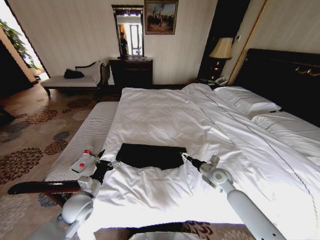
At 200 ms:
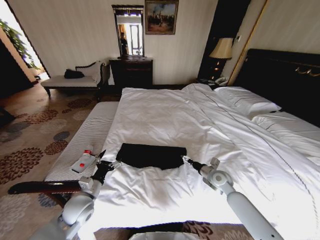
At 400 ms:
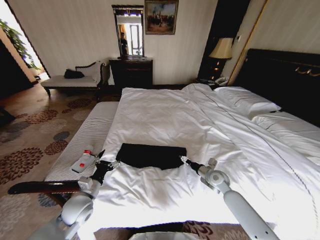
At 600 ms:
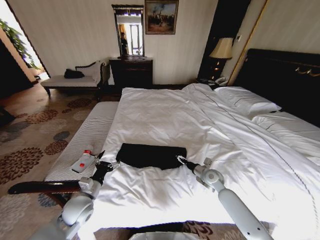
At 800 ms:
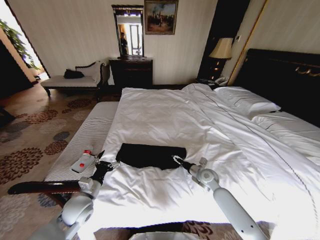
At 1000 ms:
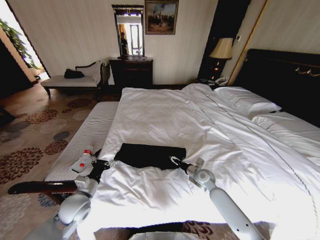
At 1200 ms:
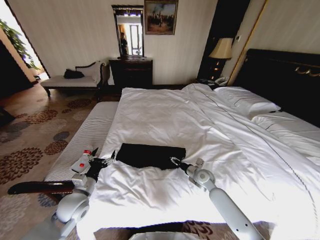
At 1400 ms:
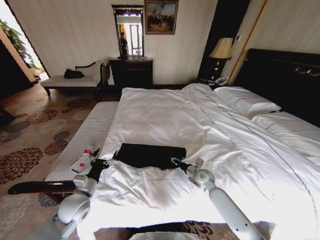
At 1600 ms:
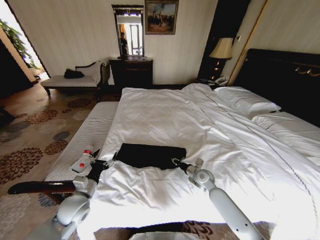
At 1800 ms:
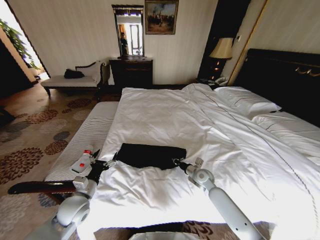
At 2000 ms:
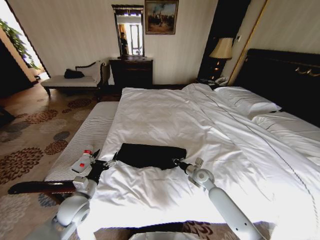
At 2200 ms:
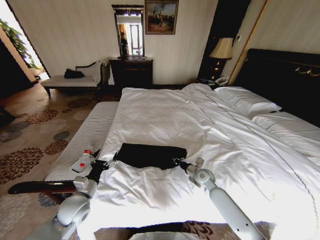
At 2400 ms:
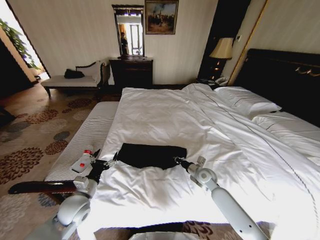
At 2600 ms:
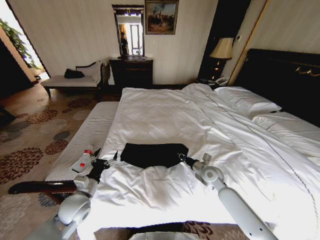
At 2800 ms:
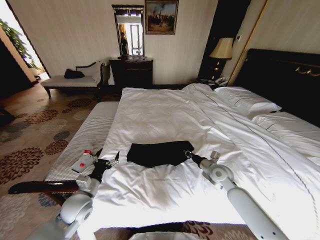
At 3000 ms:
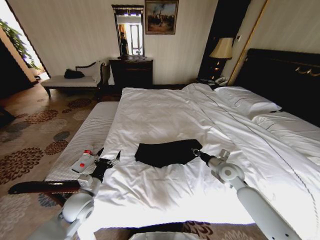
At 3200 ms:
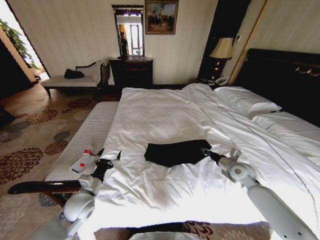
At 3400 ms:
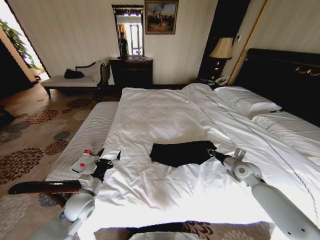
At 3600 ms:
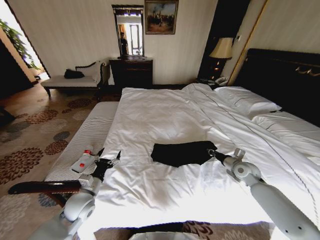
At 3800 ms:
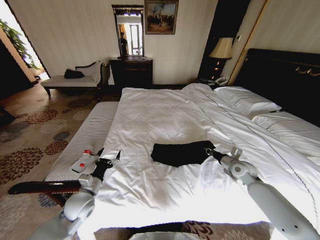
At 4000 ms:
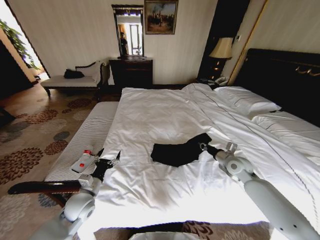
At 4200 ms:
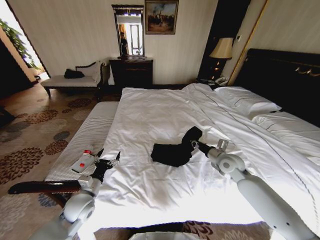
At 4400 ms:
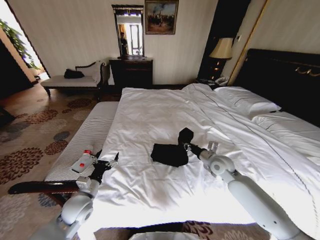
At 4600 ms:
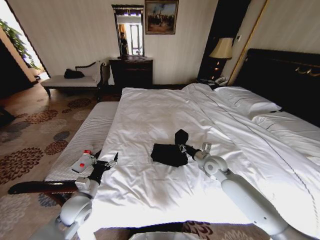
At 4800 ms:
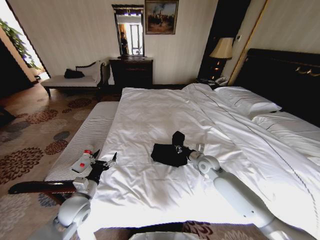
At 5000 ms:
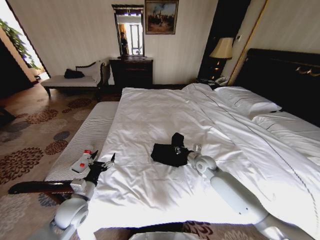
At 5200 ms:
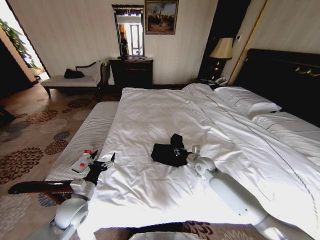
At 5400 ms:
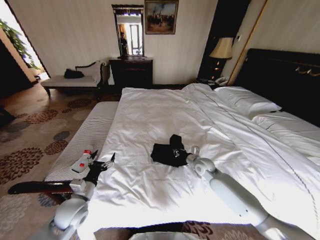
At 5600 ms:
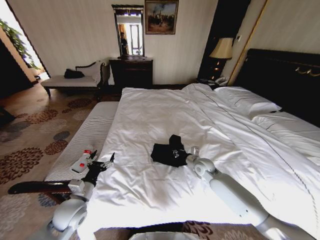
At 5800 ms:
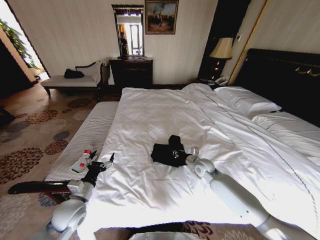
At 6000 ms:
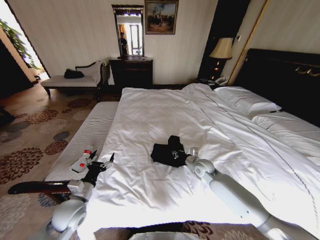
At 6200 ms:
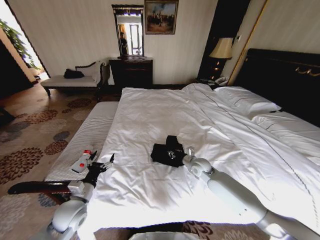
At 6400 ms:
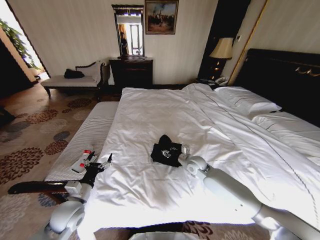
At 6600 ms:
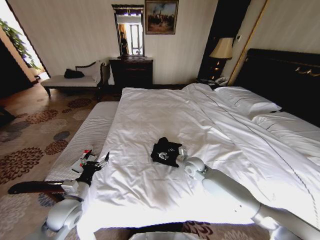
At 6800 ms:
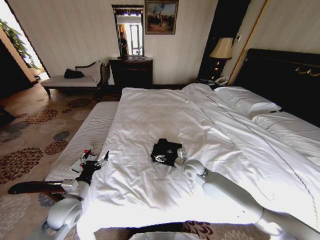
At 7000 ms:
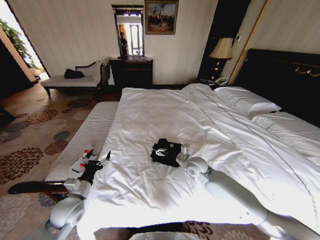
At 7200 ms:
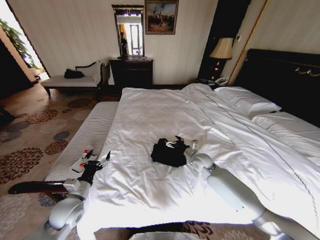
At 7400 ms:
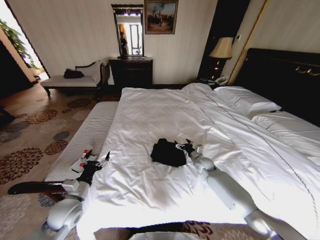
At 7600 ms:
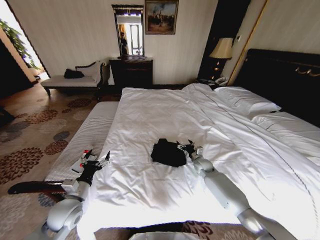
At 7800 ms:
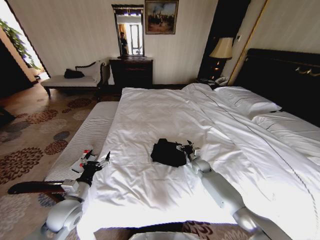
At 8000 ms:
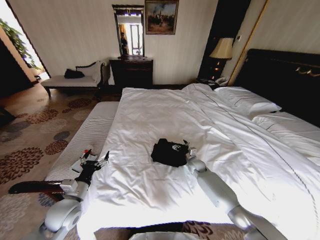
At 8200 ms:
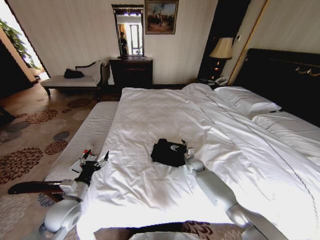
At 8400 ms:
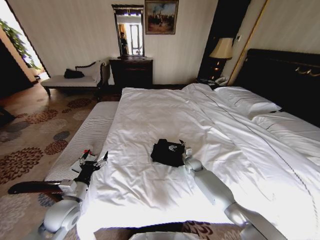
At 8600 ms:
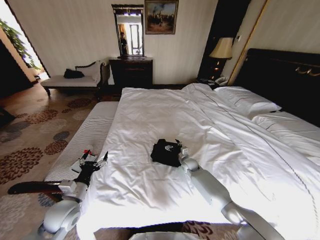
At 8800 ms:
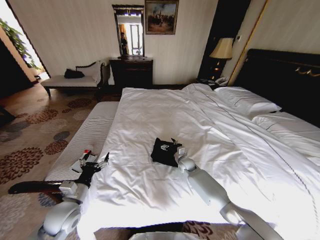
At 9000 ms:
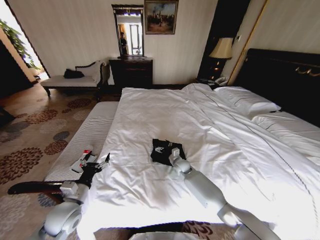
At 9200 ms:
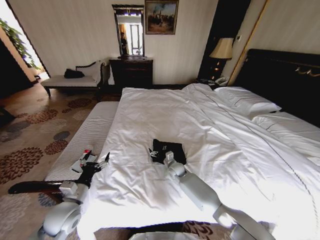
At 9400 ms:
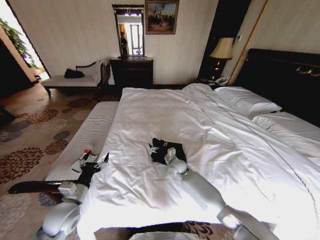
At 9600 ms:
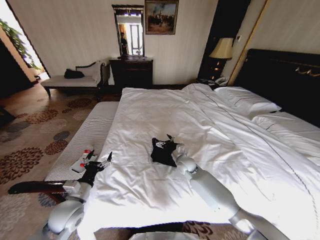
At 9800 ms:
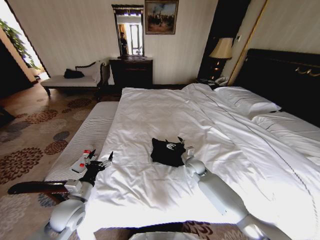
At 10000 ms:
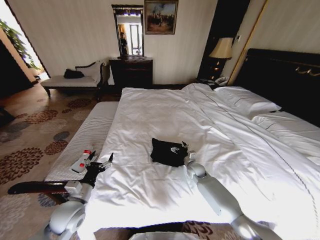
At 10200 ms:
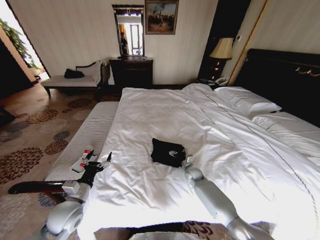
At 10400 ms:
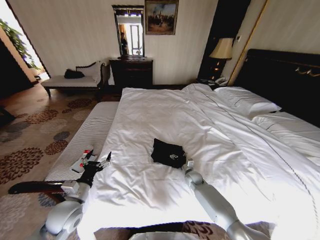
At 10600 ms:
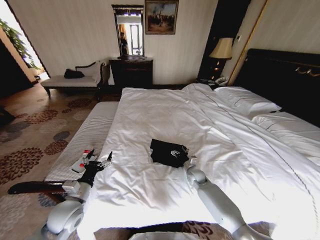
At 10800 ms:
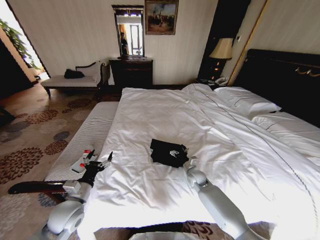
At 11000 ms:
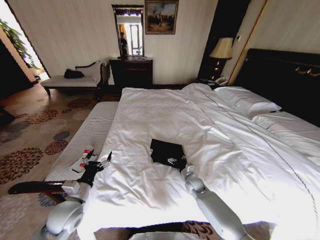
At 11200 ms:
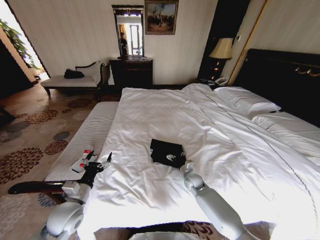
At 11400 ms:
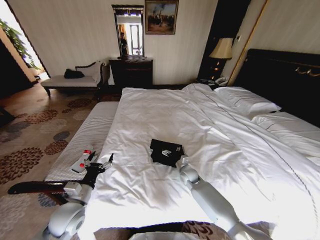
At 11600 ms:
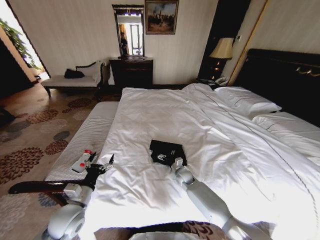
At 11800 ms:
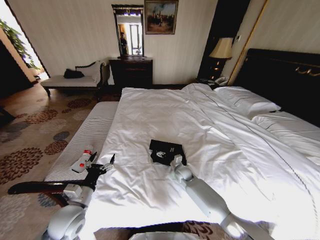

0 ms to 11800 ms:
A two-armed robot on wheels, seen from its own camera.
Task of the whole recording: Fold the clothes on the bed.
0 ms to 1400 ms: The right gripper moves to the left, roughly 5 cm, and closes.
1400 ms to 3000 ms: The right gripper heads to the right and upward, covering some 10 cm, and closes up.
3000 ms to 4400 ms: The right gripper is displaced to the left by roughly 5 cm.
4400 ms to 6000 ms: The right gripper is displaced downward by about 5 cm.
6000 ms to 7400 ms: The right gripper ends up roughly 5 cm from where it was, and opens.
7400 ms to 8800 ms: The right gripper moves to the left, some 10 cm.
8800 ms to 10400 ms: The right gripper shifts approximately 10 cm downward and backward.
10400 ms to 11800 ms: The right gripper shifts approximately 5 cm to the left.

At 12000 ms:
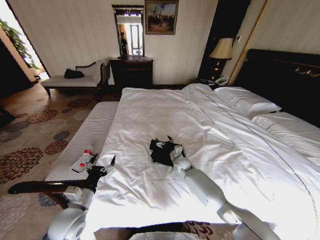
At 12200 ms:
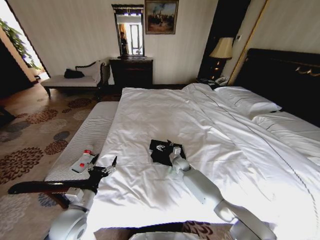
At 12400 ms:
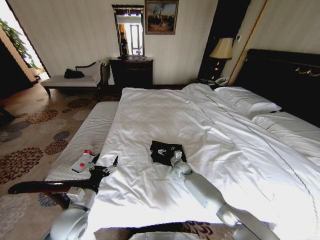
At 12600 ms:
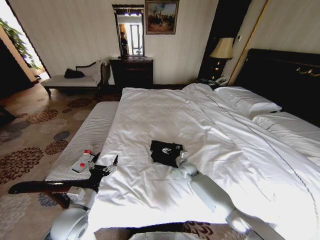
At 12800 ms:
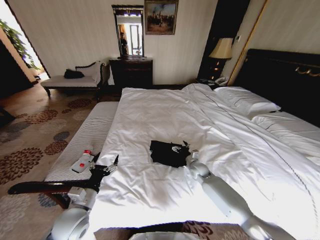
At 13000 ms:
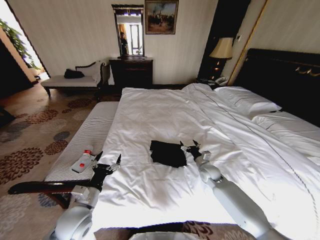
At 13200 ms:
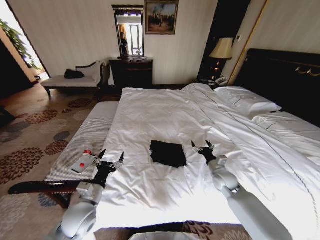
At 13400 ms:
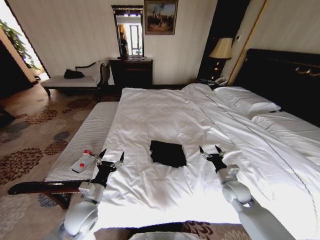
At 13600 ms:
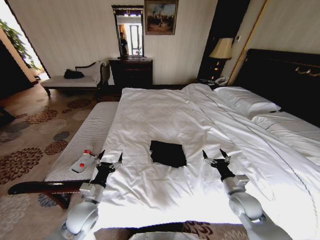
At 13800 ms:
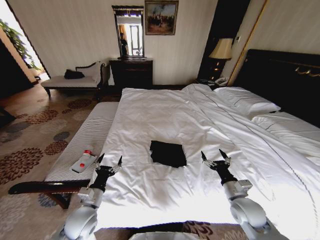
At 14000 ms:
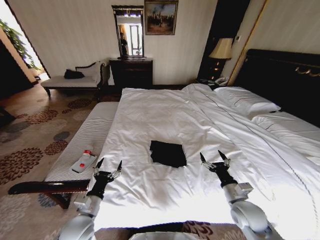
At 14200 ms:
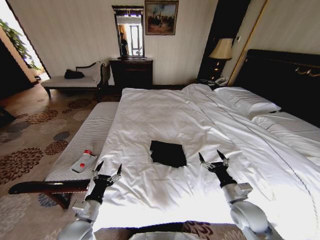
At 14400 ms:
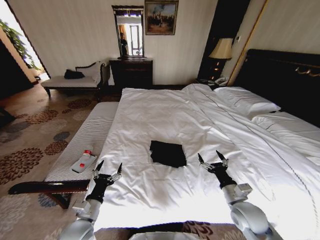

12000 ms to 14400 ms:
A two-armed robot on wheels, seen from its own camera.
Task of the whole recording: Fold the clothes on the bed.
12000 ms to 13200 ms: The right gripper travels to the right and backward by approximately 20 cm.
13200 ms to 14400 ms: The right gripper heads backward, covering roughly 15 cm, while the left gripper ends up about 5 cm from where it was.

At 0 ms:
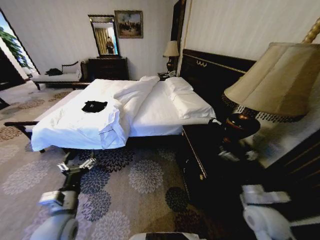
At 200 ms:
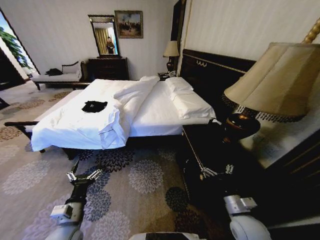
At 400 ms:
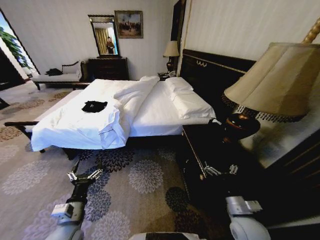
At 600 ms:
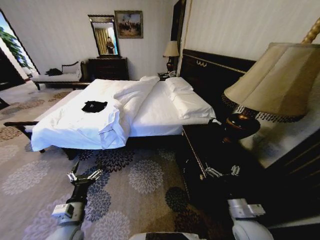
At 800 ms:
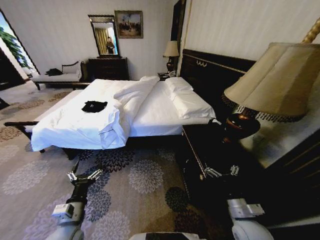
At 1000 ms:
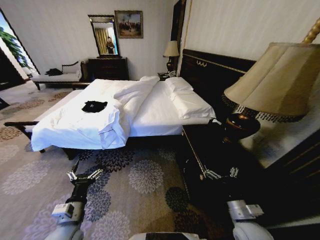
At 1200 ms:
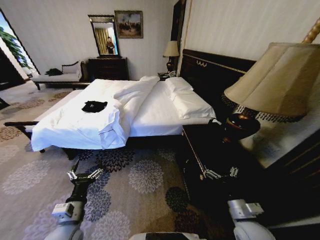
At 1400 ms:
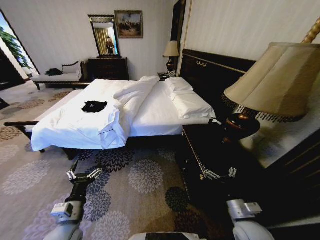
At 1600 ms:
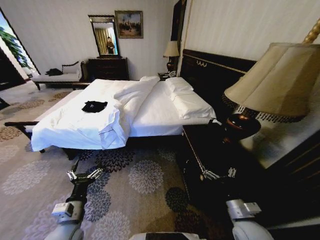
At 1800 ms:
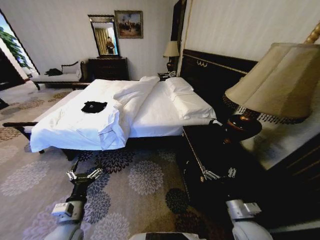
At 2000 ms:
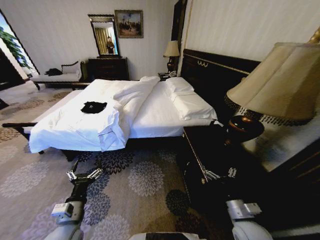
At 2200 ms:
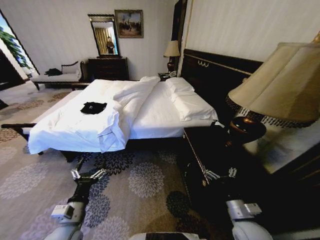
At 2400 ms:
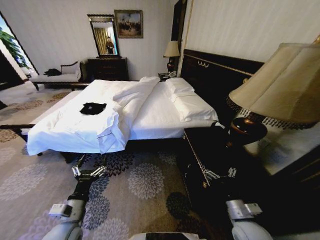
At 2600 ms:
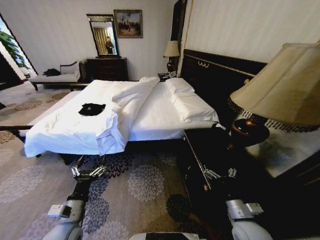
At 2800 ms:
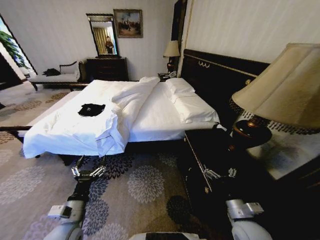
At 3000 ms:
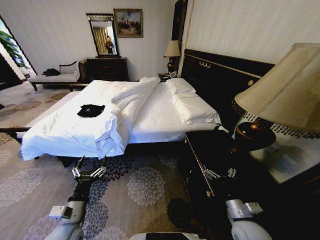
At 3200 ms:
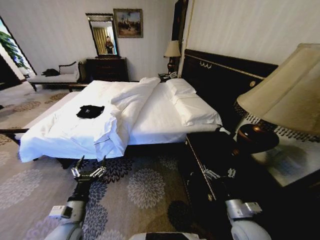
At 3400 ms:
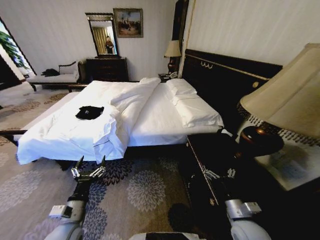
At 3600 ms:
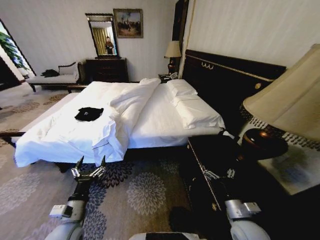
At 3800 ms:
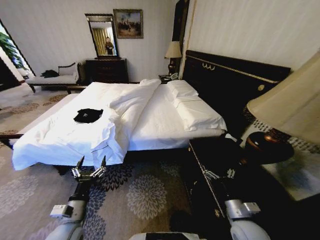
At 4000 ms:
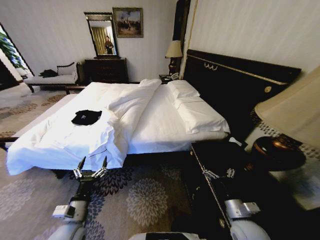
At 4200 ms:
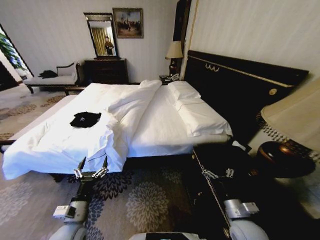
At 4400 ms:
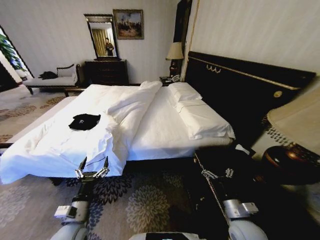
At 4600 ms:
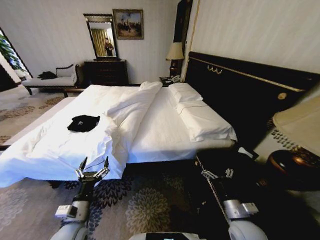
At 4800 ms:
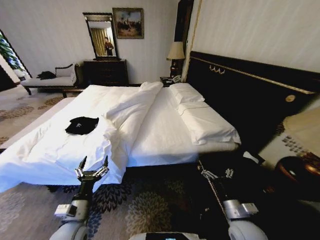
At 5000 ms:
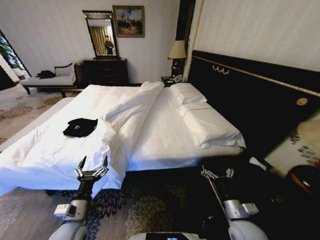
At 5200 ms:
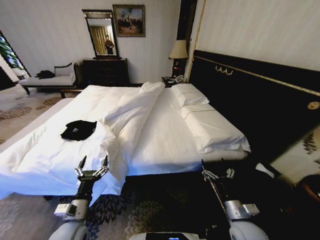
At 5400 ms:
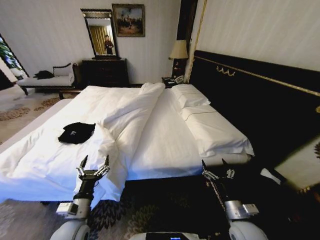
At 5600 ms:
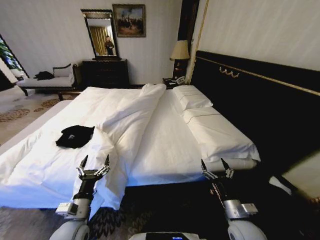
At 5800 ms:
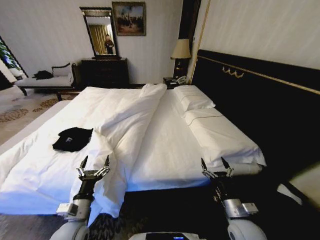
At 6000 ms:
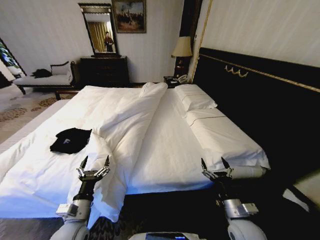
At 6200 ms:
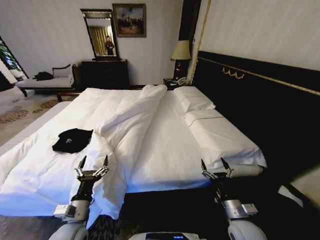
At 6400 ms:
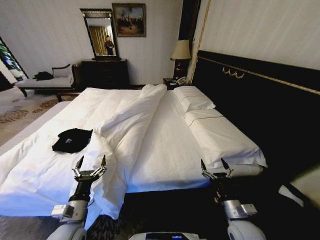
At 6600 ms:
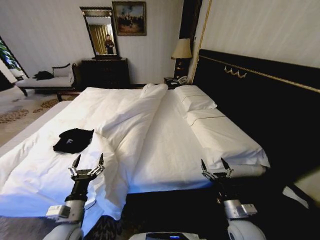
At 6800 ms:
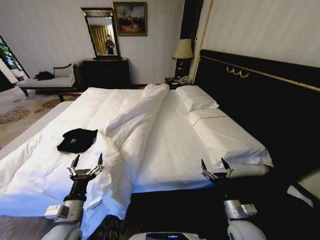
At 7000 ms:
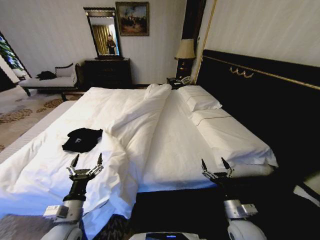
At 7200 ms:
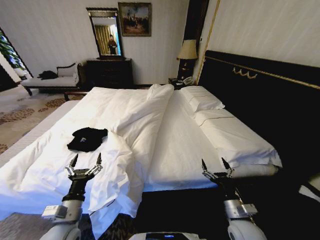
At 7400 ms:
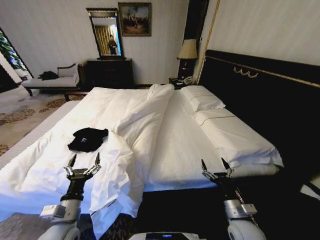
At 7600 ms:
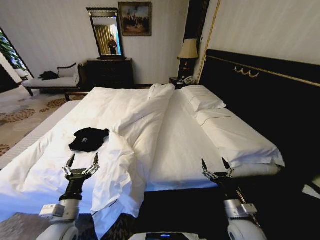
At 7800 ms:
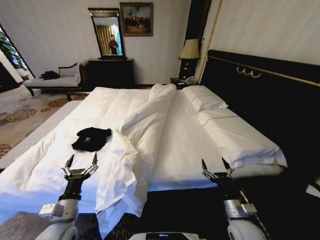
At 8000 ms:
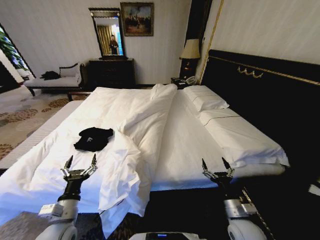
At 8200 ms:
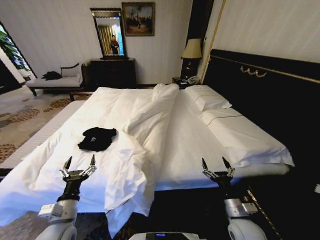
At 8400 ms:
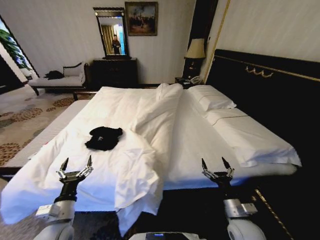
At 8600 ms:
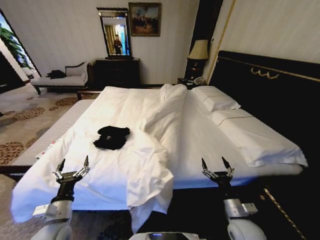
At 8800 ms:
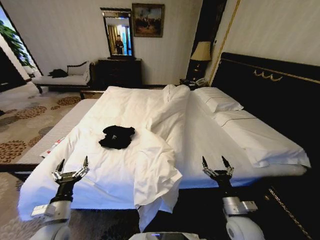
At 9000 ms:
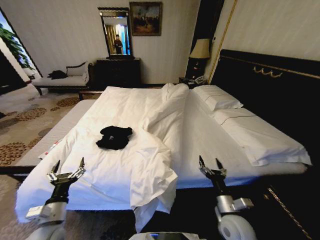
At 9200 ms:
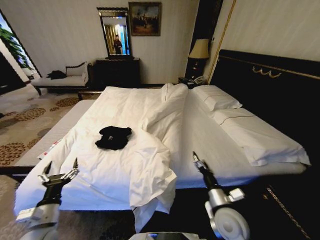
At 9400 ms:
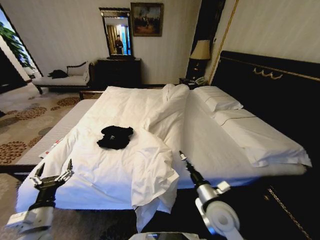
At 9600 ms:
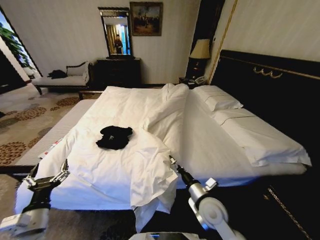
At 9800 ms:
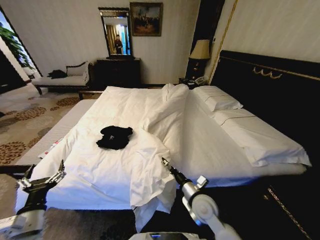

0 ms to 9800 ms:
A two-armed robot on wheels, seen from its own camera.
Task of the whole recording: Fold the clothes on the bed.
8400 ms to 9800 ms: The right gripper moves to the left and forward, approximately 15 cm. Meanwhile the left gripper heads to the left, covering approximately 5 cm.
